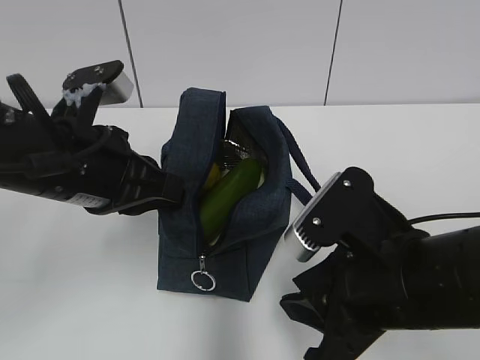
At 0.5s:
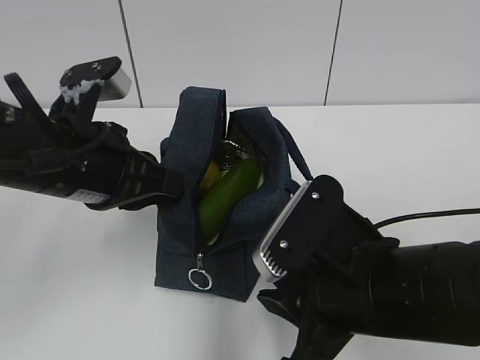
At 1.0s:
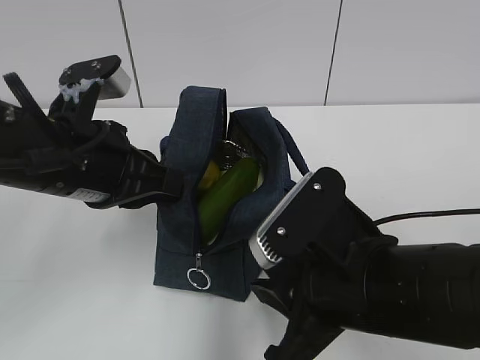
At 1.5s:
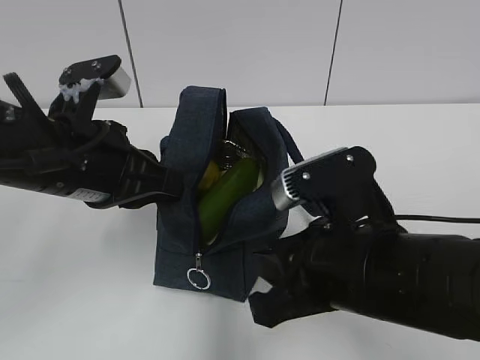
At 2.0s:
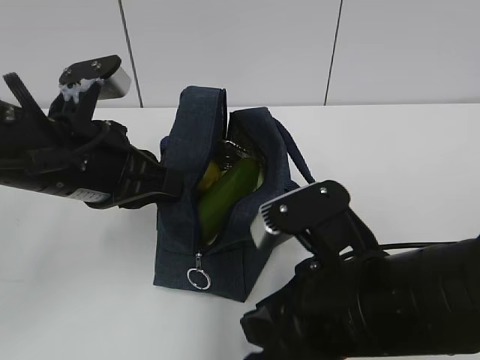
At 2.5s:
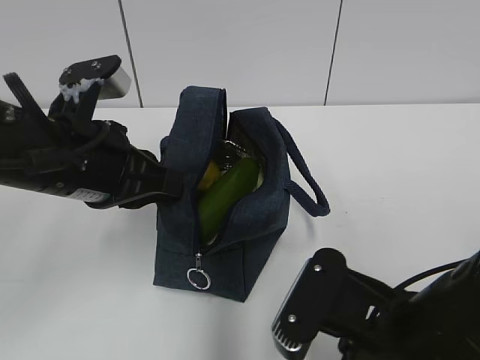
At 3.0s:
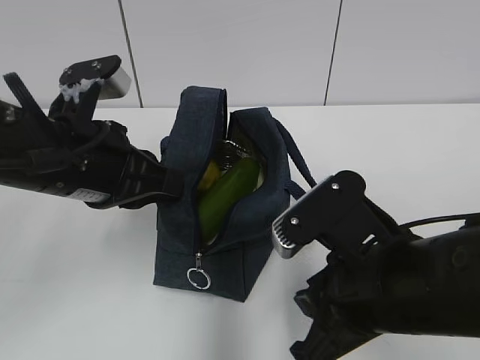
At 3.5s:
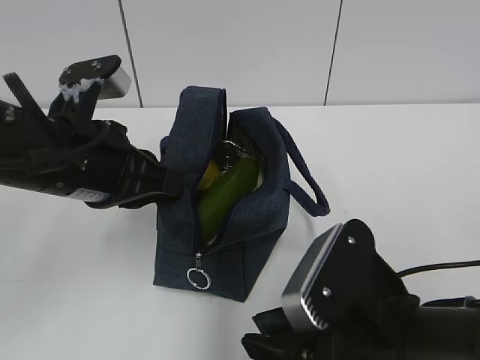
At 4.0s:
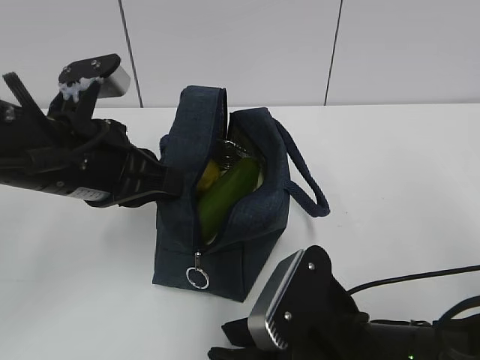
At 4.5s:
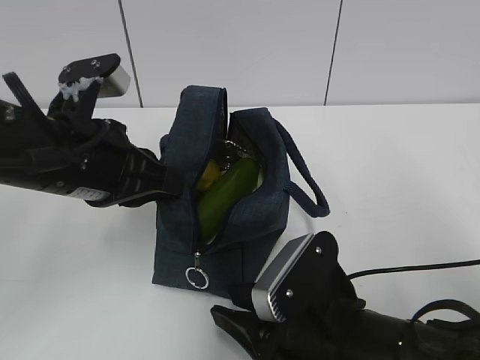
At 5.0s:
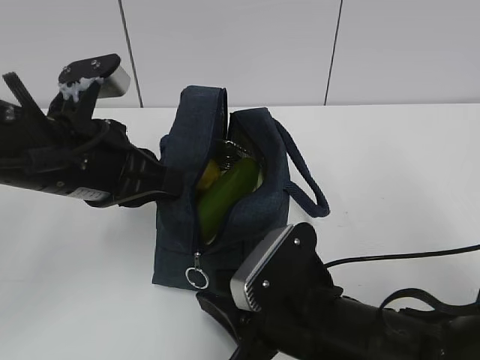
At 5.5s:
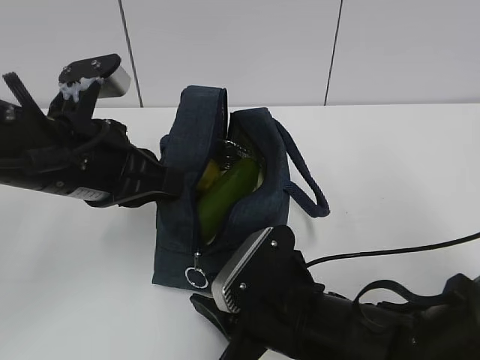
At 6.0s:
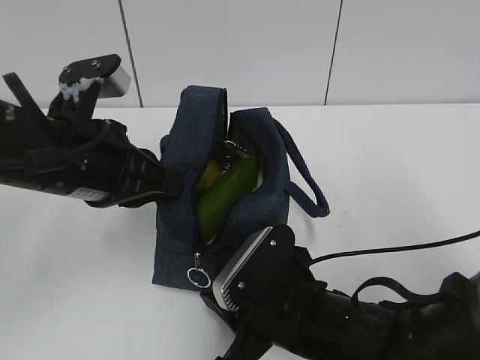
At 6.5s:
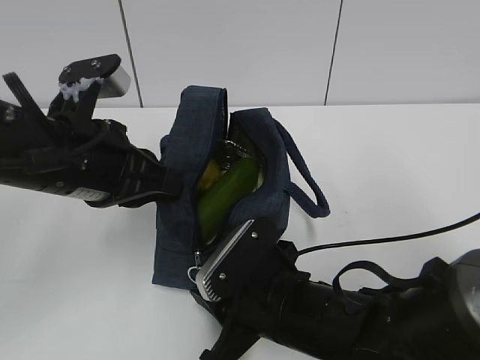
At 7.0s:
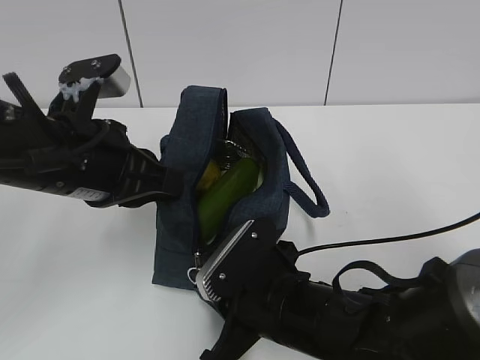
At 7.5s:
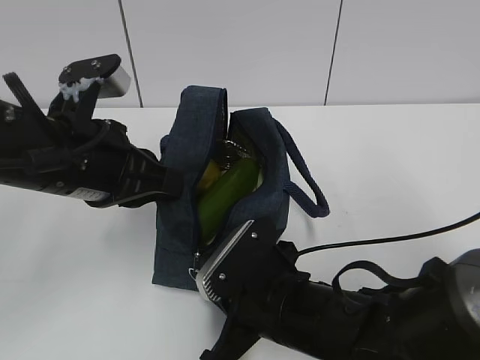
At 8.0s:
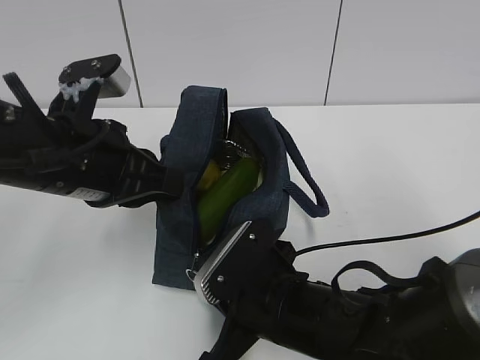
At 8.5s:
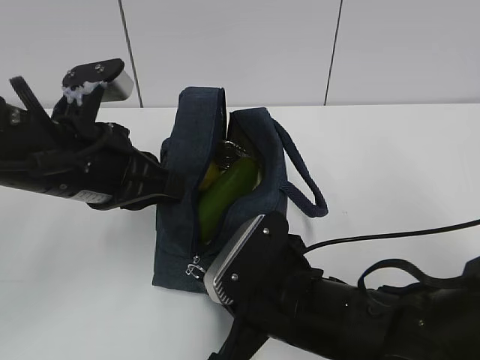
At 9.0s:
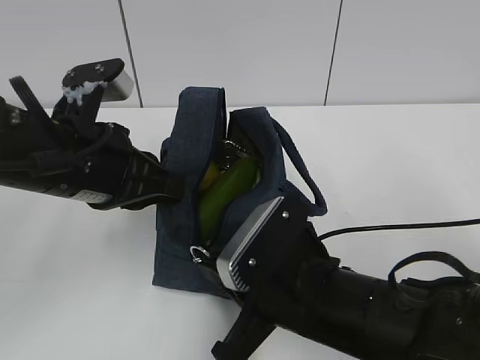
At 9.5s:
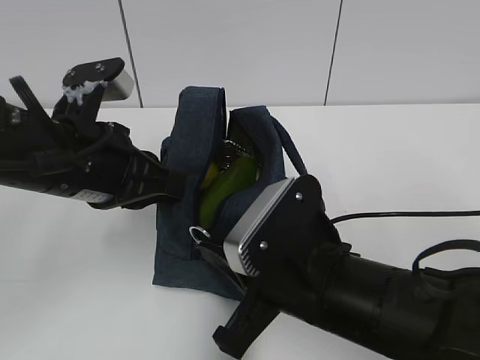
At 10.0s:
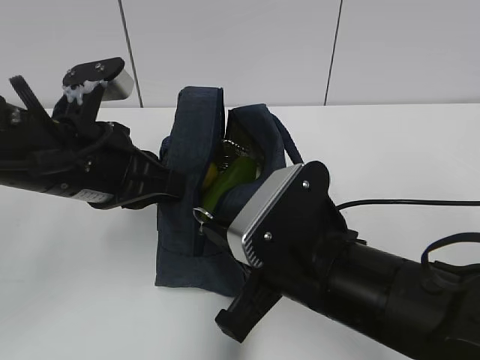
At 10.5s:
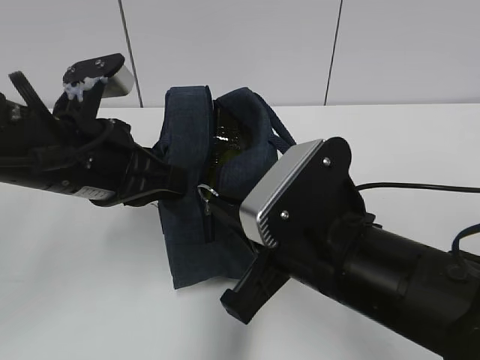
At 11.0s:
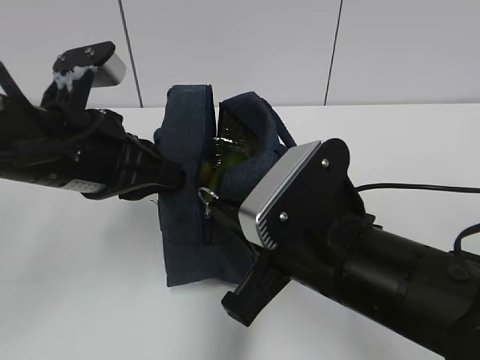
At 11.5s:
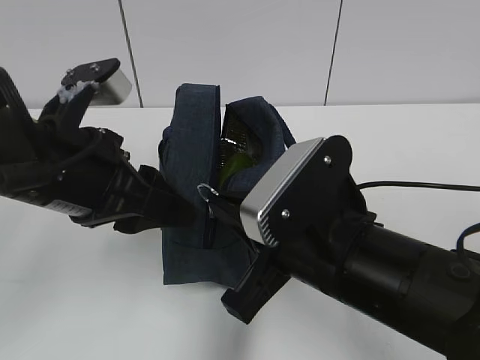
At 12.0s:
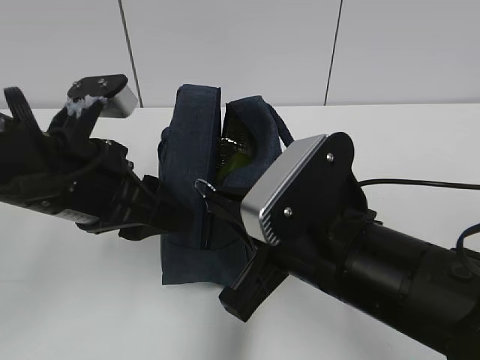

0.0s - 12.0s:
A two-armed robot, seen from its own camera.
2.0s - 4.0s: The right gripper moves downward, about 5 cm.
4.0s - 6.0s: The right gripper shifts by roughly 5 cm.
6.0s - 8.0s: The right gripper closes.
8.0s - 10.0s: The right gripper goes about 10 cm upward.
10.0s - 12.0s: The left gripper opens up.

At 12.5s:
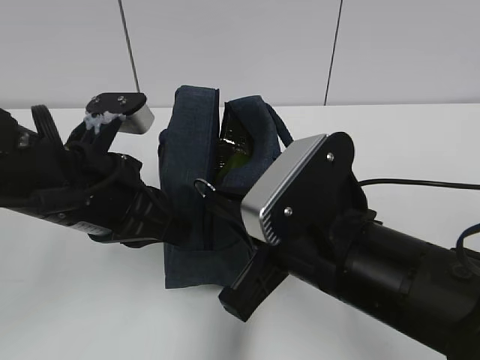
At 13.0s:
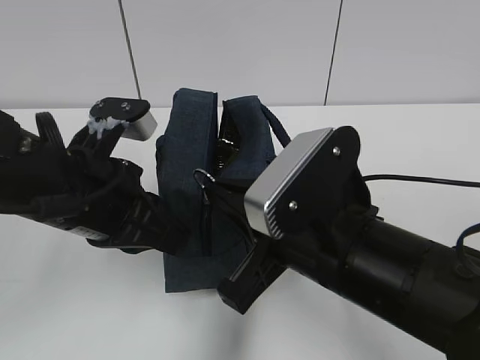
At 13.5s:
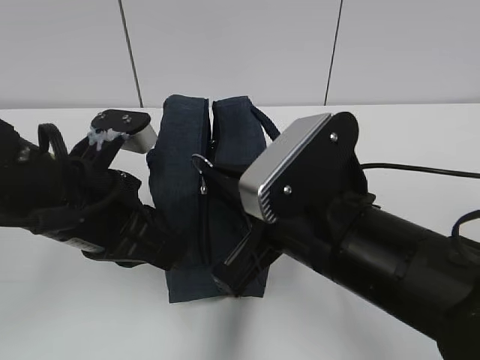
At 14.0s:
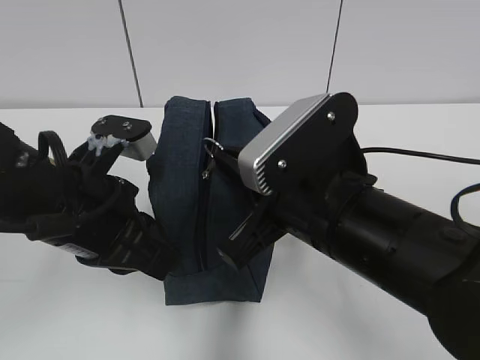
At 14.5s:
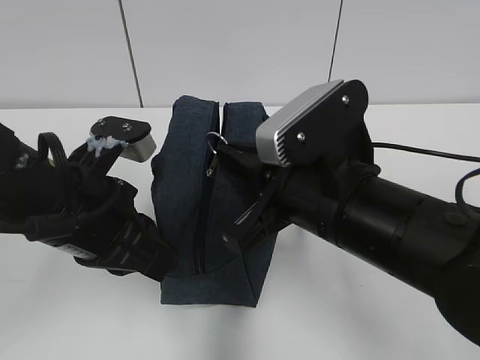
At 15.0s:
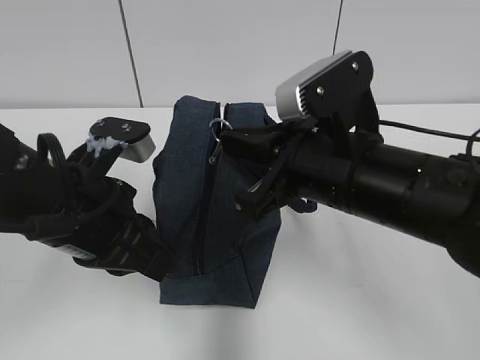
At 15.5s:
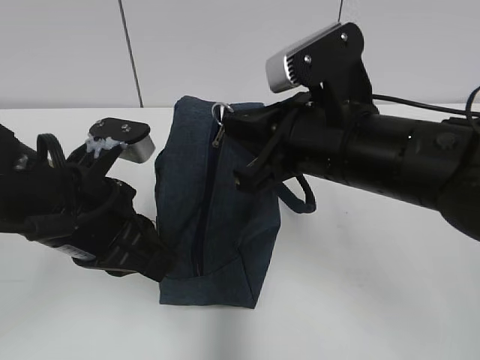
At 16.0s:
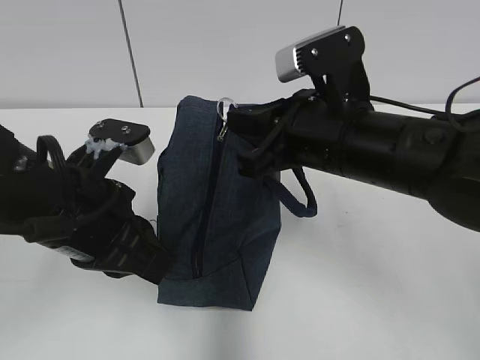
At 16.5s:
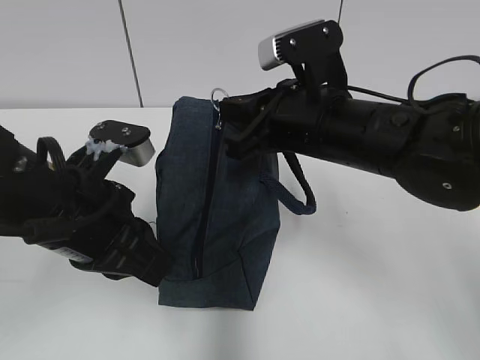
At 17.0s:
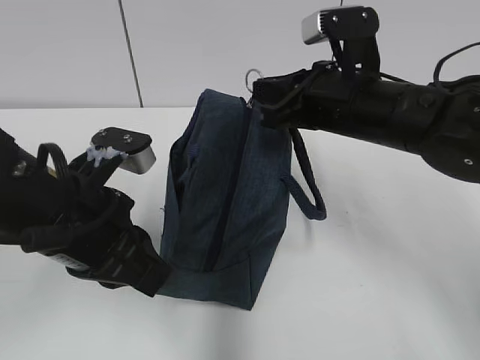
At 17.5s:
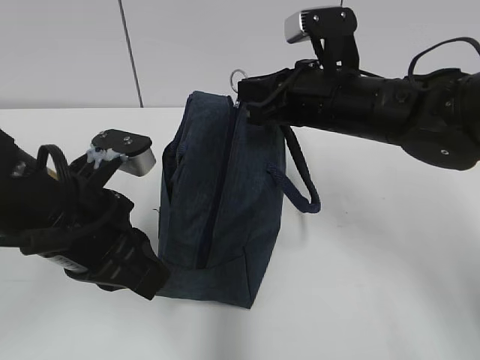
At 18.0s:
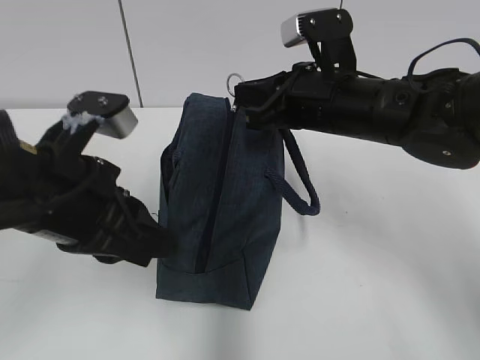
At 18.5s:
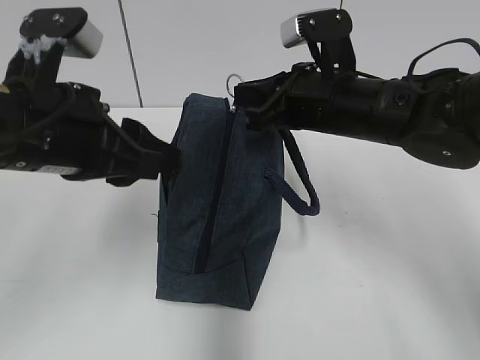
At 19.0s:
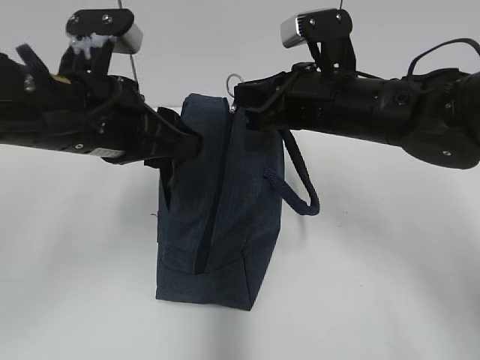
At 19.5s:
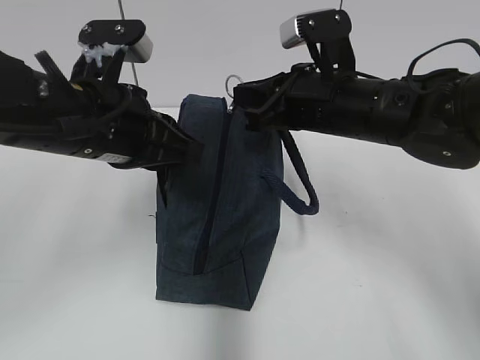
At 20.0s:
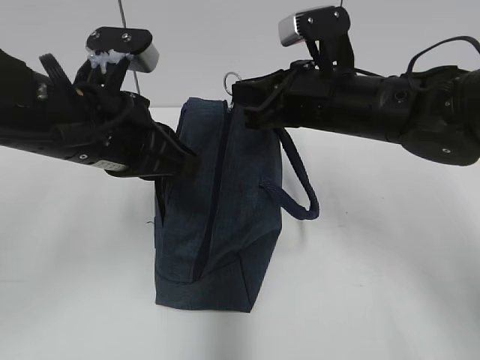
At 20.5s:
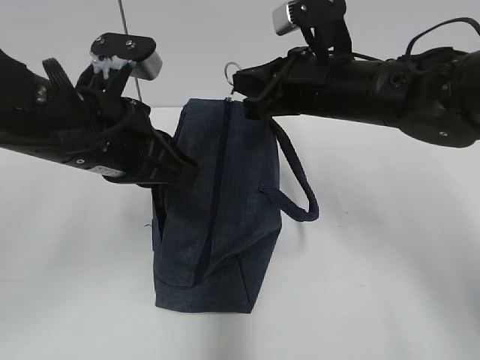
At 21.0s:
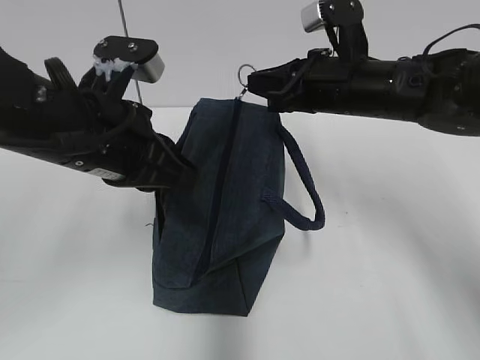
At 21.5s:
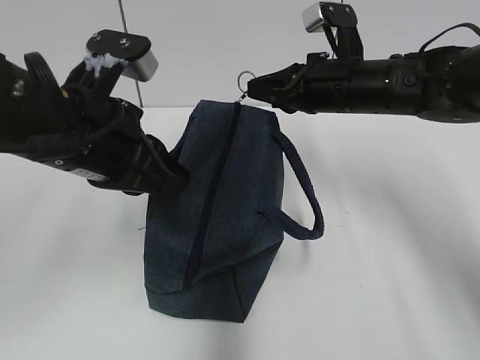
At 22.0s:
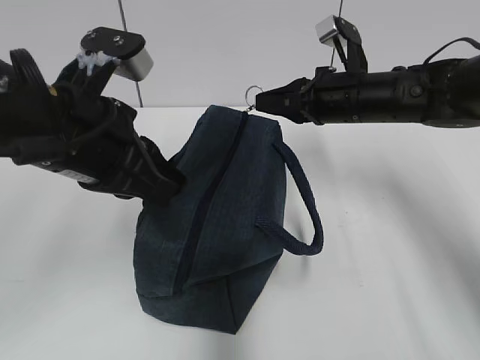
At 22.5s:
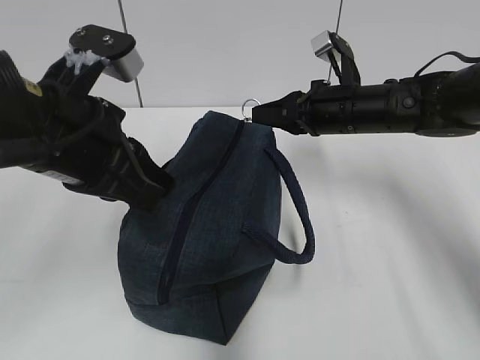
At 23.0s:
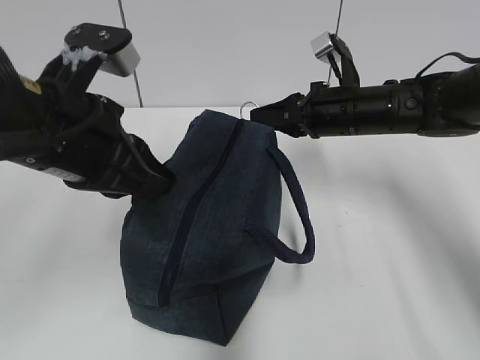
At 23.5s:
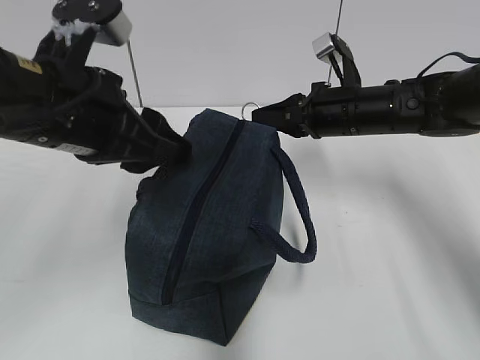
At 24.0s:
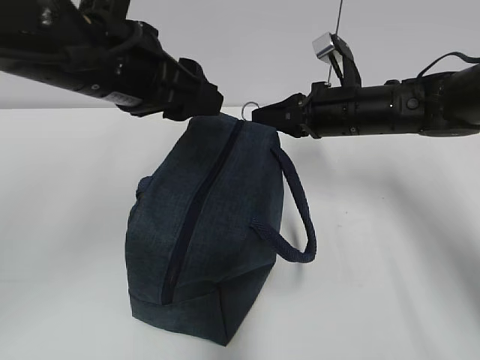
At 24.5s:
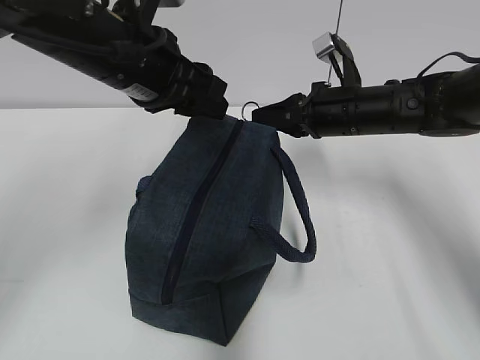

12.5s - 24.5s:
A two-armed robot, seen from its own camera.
14.5s - 16.5s: The right gripper moves forward, some 10 cm.
16.5s - 18.5s: The left gripper moves upward, some 5 cm, and opens its fingers.
18.5s - 20.5s: The left gripper closes up.
20.5s - 22.5s: The right gripper shifts roughly 10 cm downward and forward.
22.5s - 24.5s: The left gripper heads forward, covering about 10 cm, and opens its fingers.

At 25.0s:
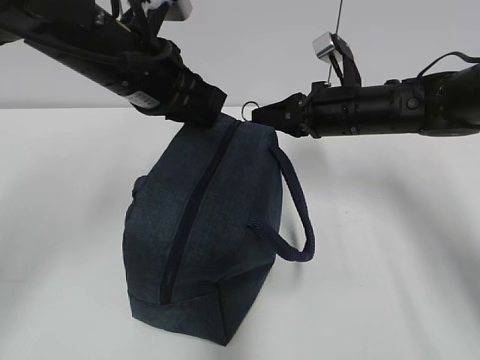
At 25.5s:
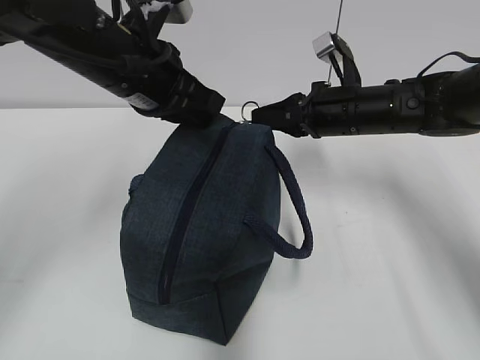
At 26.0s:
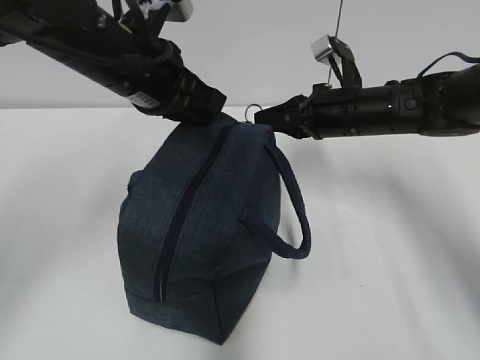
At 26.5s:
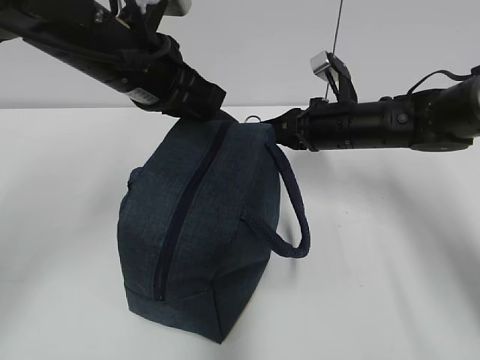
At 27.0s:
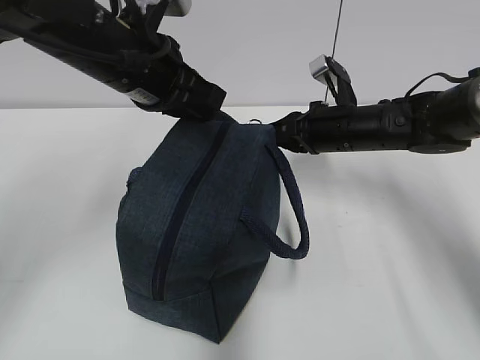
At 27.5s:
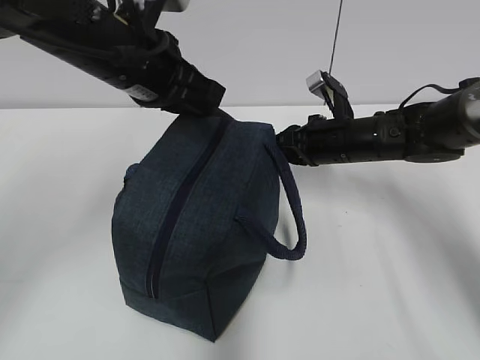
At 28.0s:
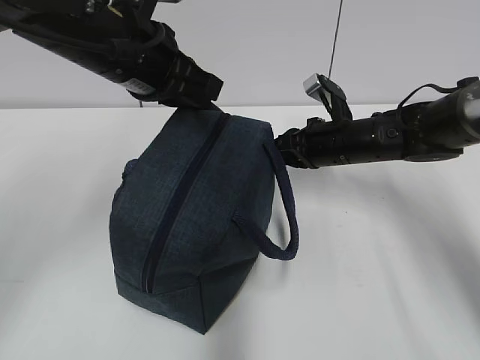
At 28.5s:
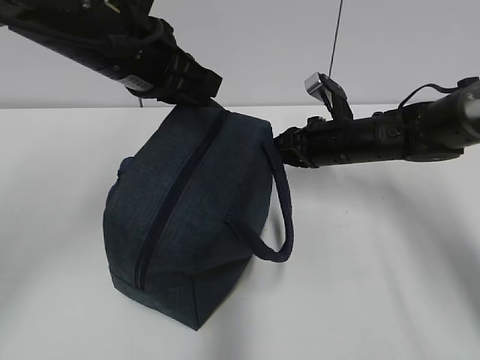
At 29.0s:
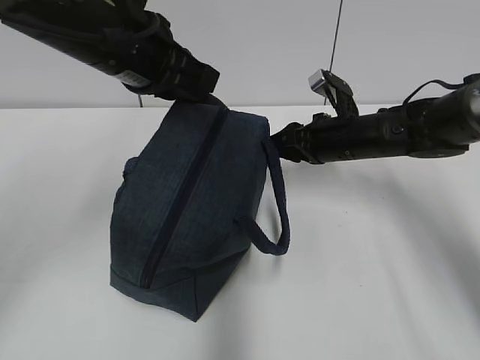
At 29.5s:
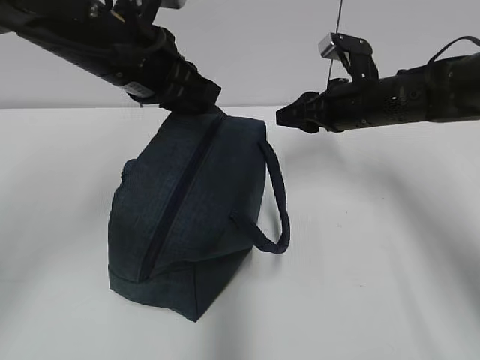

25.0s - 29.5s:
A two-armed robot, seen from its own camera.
Step, 25.0s - 29.0s: Pull the zipper with your right hand.
25.0s - 27.0s: The grippers make only small movements.
27.0s - 29.5s: The right gripper opens its fingers.
